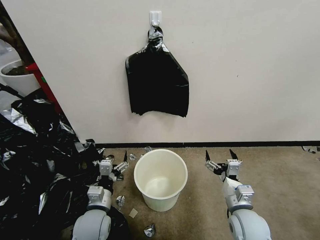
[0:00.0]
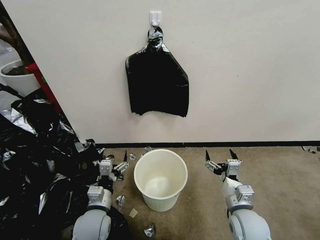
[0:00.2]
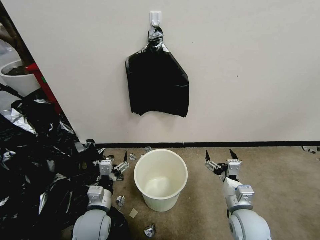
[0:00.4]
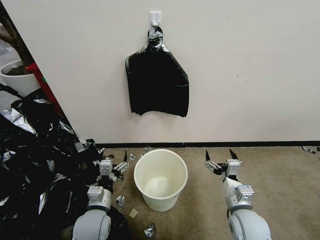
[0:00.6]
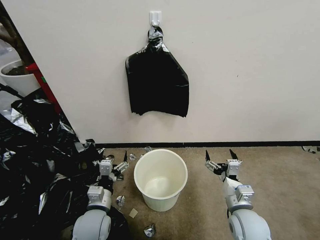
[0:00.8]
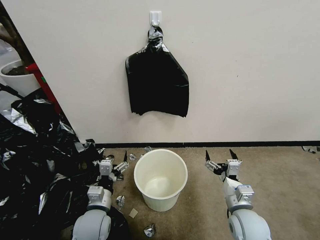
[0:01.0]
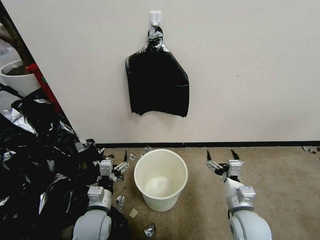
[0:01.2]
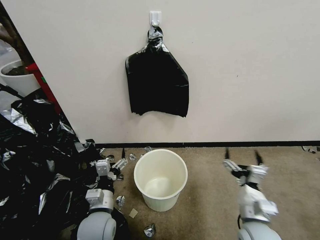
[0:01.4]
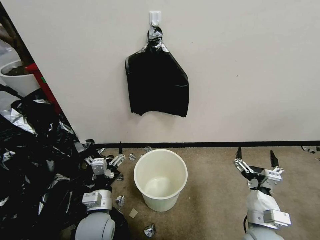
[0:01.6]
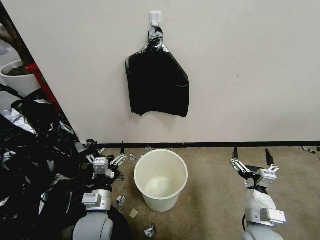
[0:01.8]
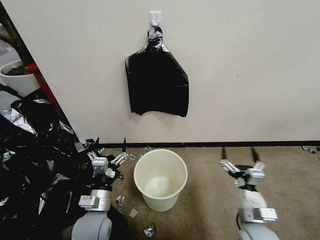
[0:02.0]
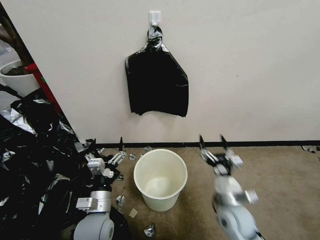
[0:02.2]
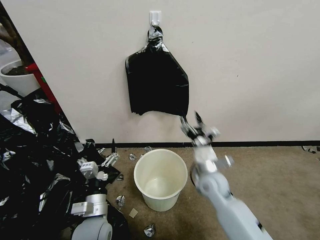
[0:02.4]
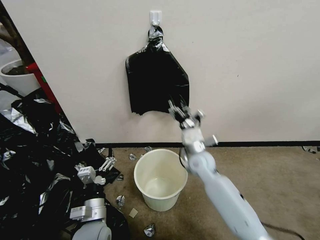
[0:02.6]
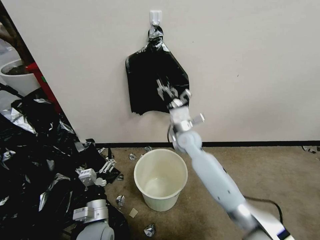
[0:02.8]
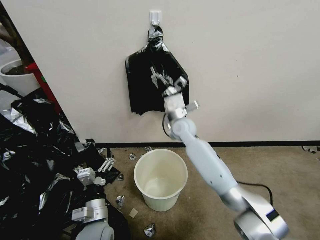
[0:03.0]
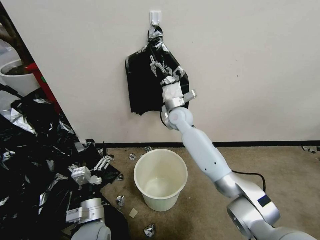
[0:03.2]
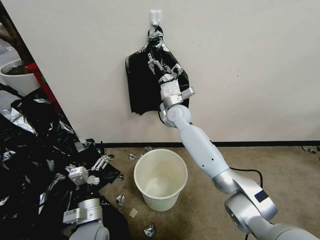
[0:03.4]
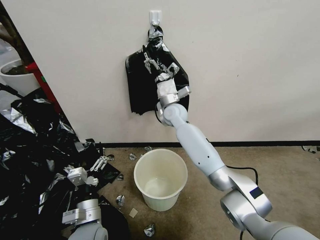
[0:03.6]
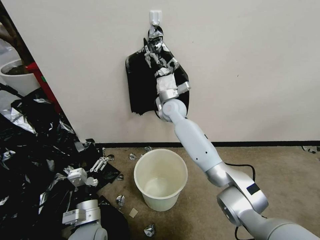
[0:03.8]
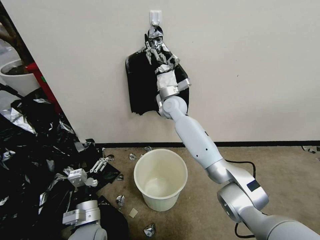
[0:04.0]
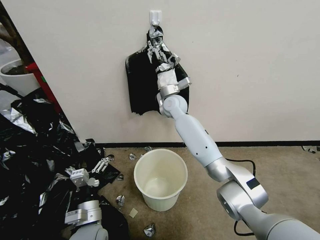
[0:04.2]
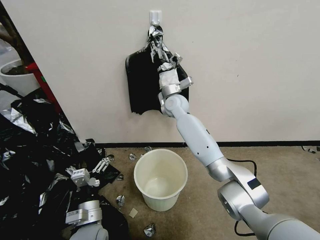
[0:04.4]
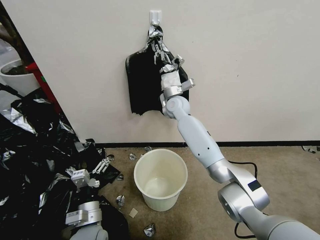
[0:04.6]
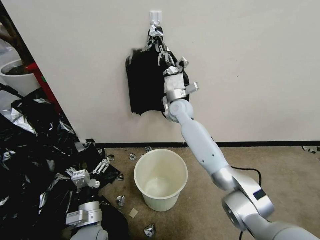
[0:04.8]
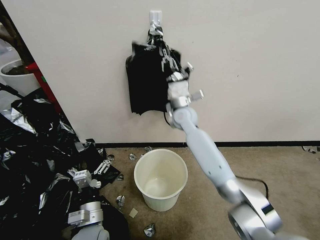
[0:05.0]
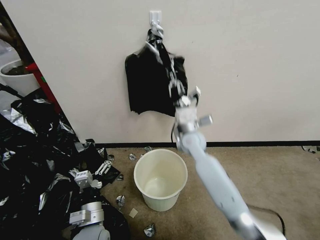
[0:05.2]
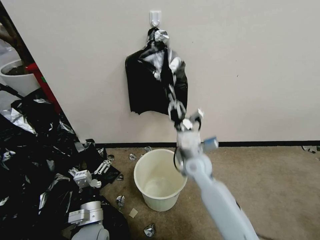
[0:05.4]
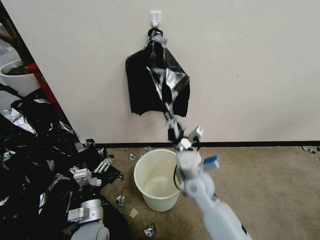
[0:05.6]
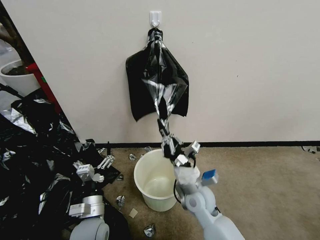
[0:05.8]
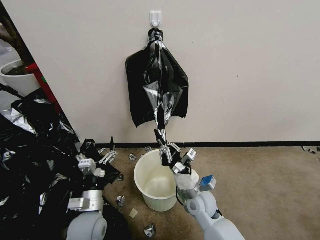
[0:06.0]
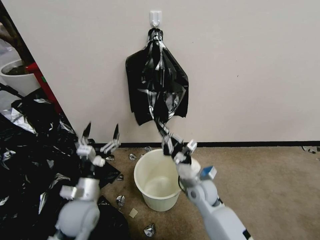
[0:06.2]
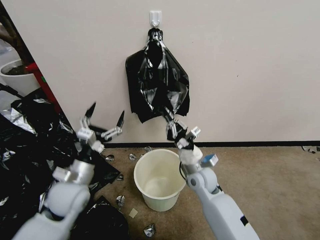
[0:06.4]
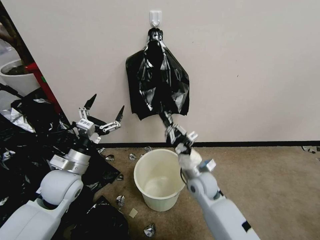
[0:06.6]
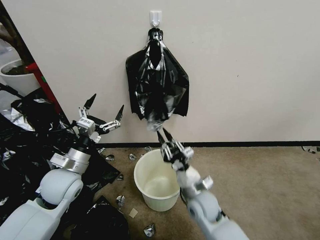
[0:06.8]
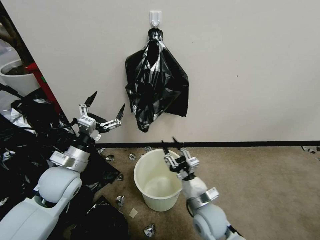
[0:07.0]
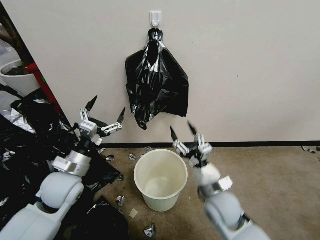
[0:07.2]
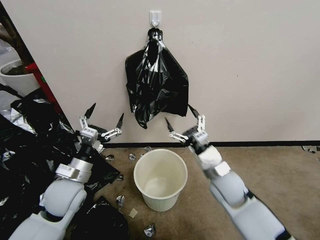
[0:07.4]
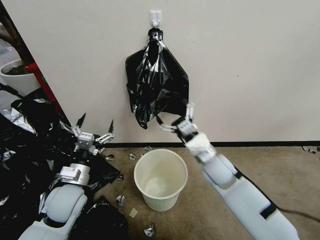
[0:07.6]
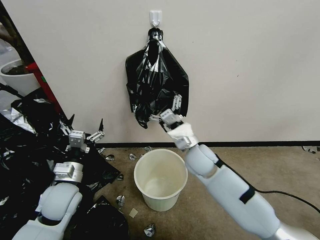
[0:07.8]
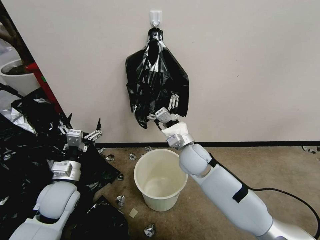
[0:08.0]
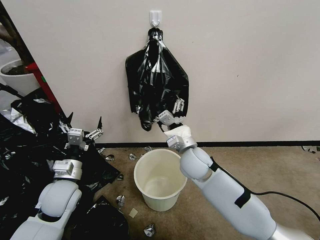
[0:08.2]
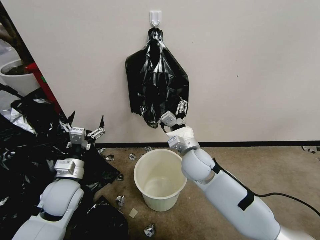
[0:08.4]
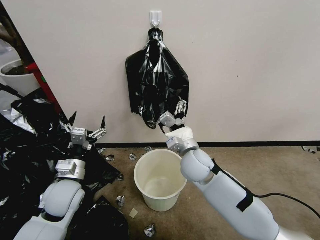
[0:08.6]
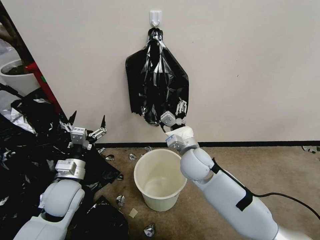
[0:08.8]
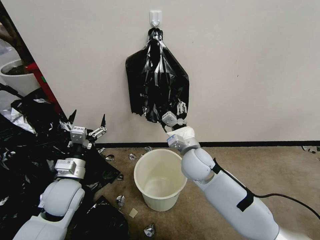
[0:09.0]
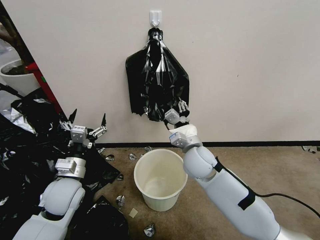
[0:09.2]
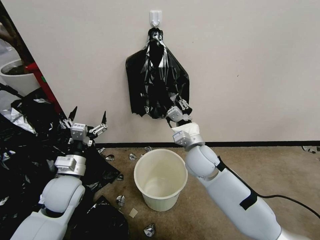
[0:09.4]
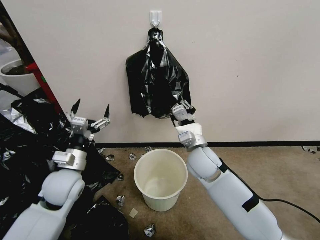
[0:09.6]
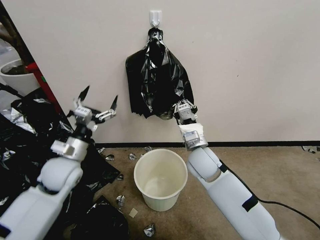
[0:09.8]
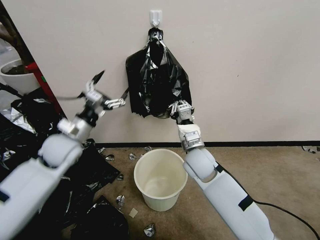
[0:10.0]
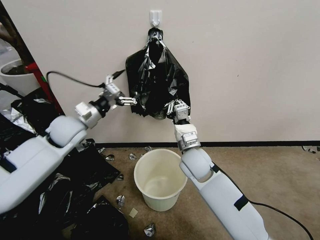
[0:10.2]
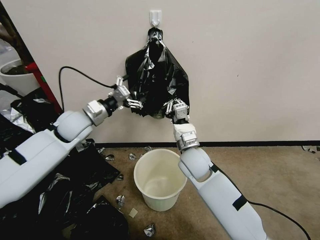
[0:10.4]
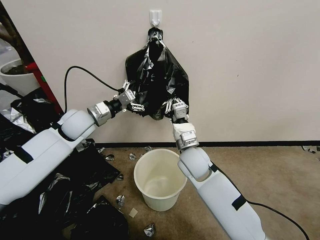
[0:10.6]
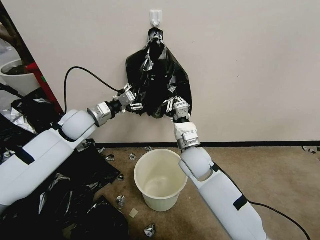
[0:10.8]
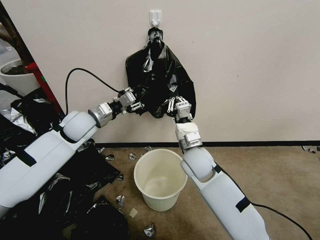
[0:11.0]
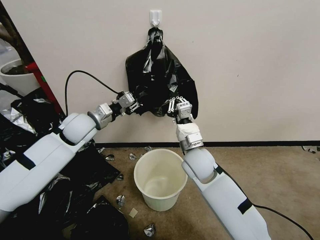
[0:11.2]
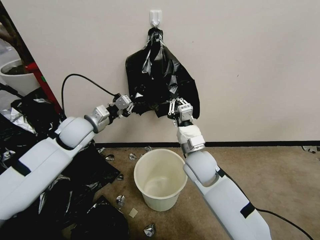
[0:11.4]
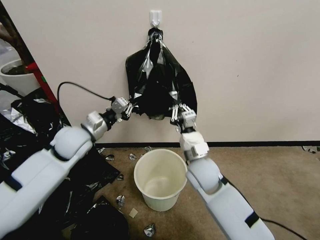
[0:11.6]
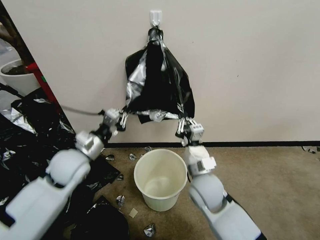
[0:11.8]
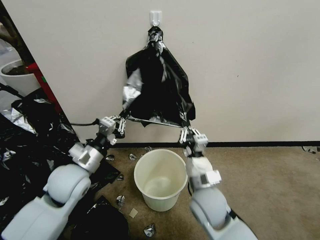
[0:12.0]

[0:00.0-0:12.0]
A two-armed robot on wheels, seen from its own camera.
Task of the whole recording: Place a trash bag onto the trash bin.
1.6 to 3.0 s: The right gripper is displaced forward and to the left by approximately 40 cm.
3.0 to 4.4 s: The right gripper heads forward and upward, covering roughly 10 cm, and closes its fingers.
4.4 to 6.0 s: The right gripper is displaced backward and downward by approximately 35 cm.
6.0 to 7.6 s: The right gripper moves forward and backward over approximately 10 cm, changing direction 2 times, and opens its fingers; the left gripper shifts roughly 10 cm upward, to the left and forward.
7.6 to 9.0 s: The right gripper shifts about 5 cm to the left.
9.0 to 10.4 s: The left gripper heads forward and upward, covering some 20 cm. Meanwhile the right gripper closes.
10.4 to 12.0 s: Both grippers move backward, some 15 cm. The left gripper closes.

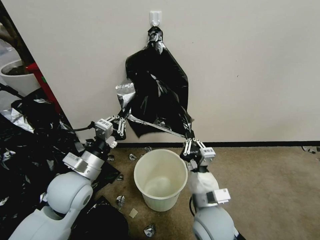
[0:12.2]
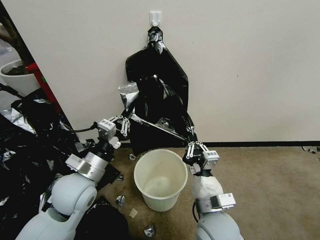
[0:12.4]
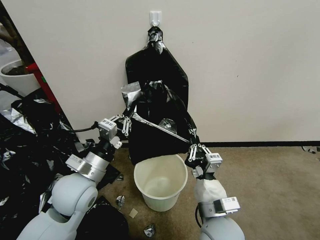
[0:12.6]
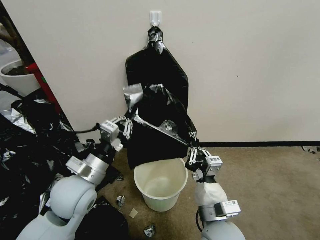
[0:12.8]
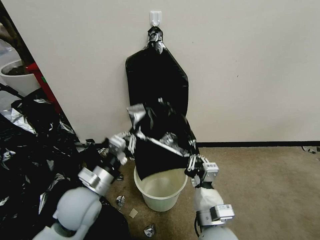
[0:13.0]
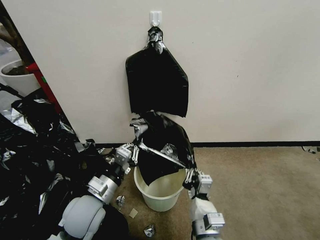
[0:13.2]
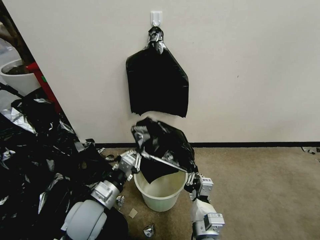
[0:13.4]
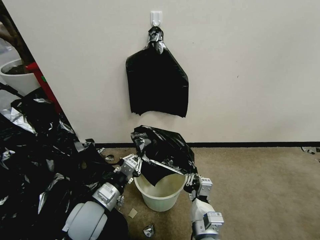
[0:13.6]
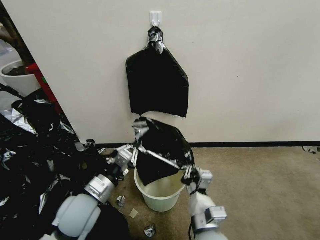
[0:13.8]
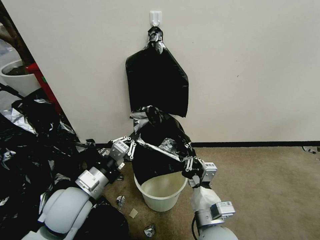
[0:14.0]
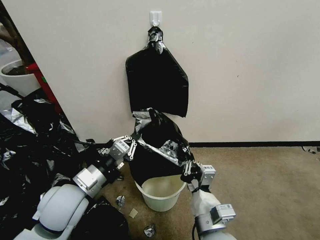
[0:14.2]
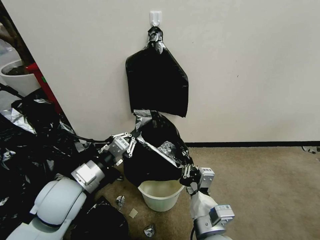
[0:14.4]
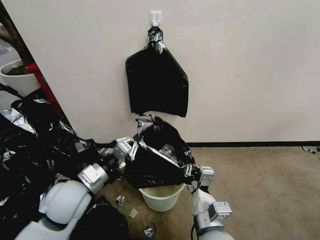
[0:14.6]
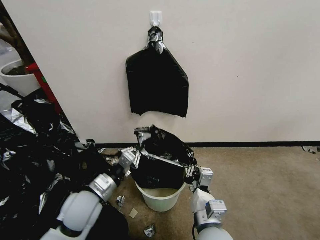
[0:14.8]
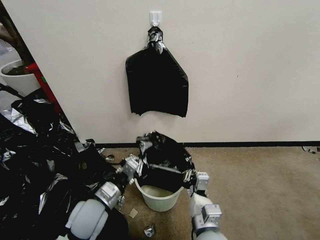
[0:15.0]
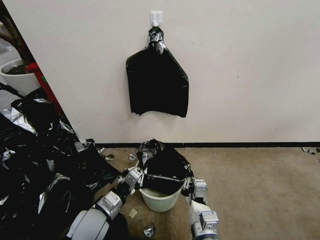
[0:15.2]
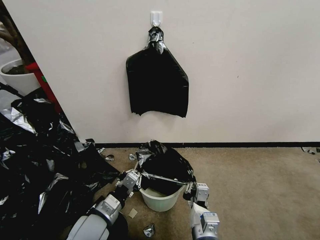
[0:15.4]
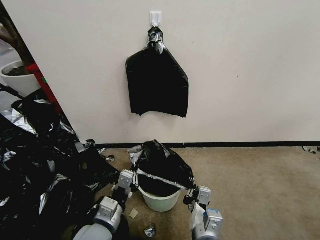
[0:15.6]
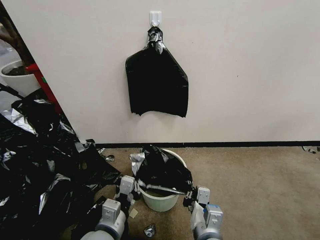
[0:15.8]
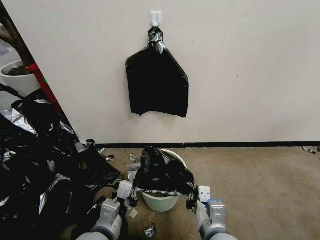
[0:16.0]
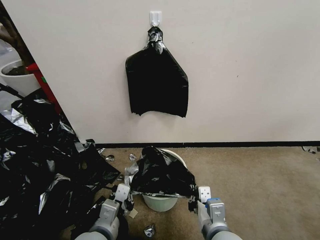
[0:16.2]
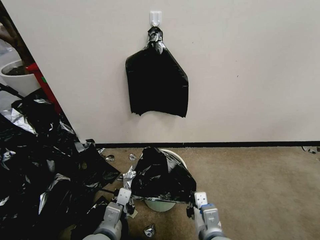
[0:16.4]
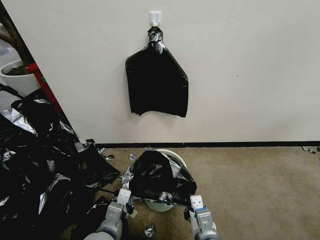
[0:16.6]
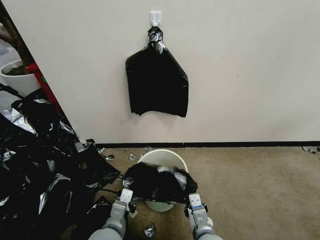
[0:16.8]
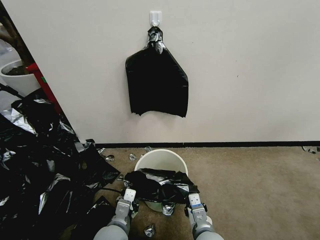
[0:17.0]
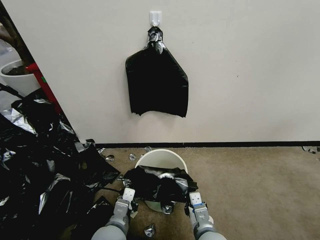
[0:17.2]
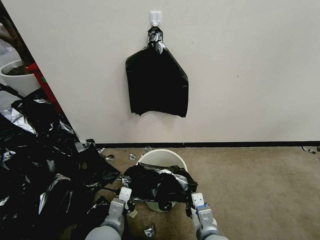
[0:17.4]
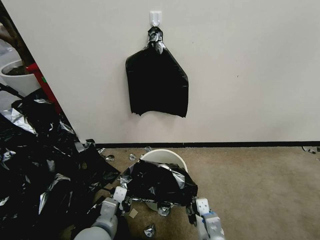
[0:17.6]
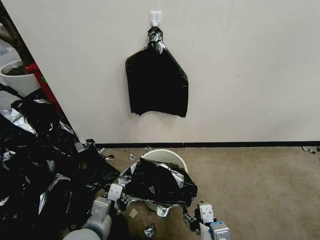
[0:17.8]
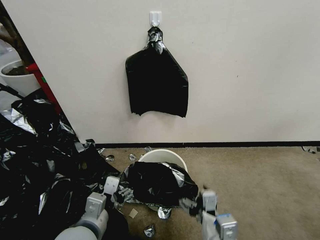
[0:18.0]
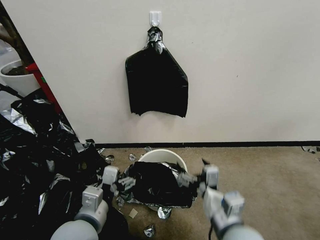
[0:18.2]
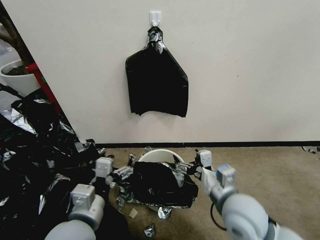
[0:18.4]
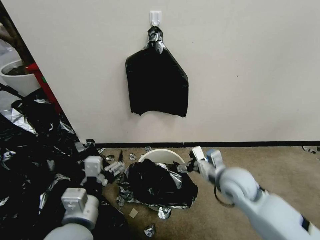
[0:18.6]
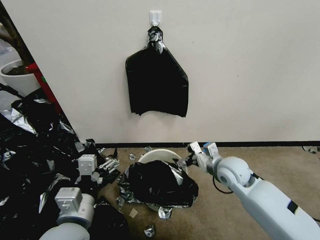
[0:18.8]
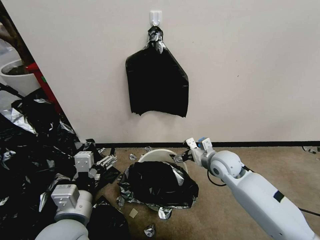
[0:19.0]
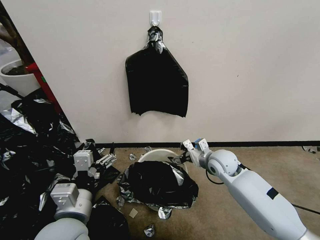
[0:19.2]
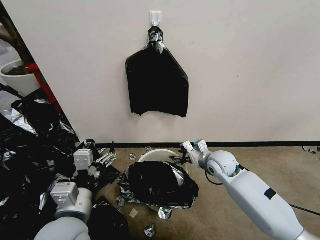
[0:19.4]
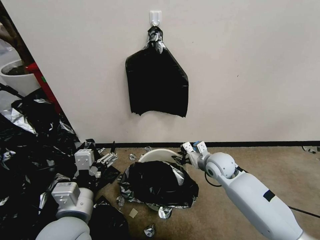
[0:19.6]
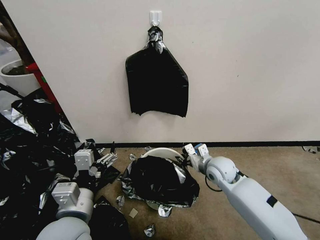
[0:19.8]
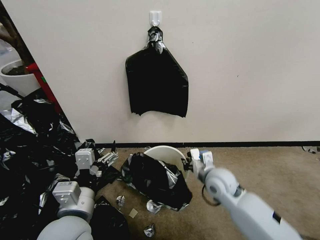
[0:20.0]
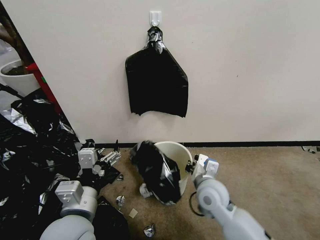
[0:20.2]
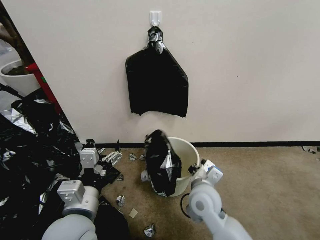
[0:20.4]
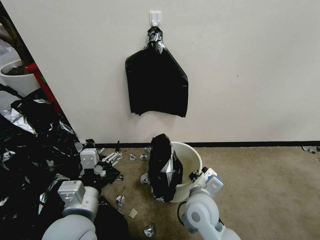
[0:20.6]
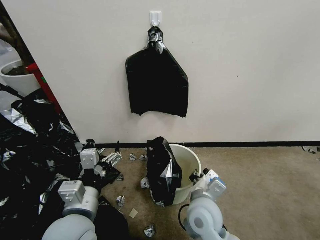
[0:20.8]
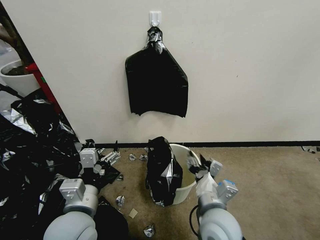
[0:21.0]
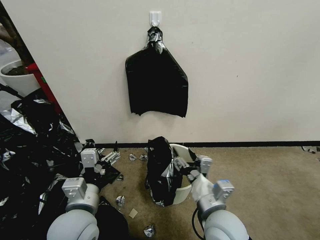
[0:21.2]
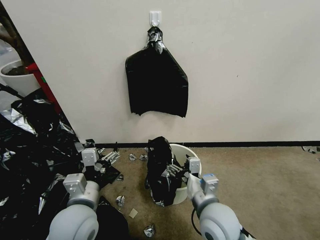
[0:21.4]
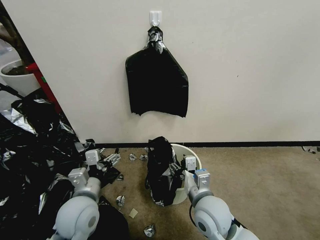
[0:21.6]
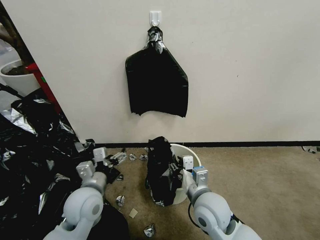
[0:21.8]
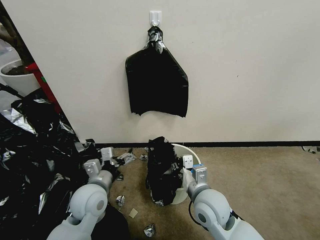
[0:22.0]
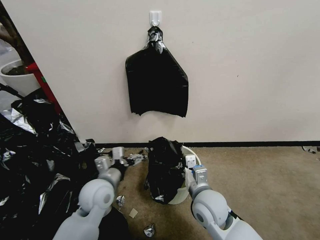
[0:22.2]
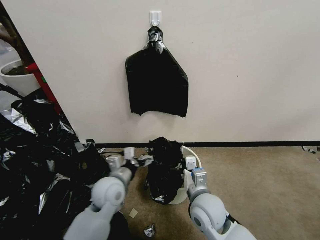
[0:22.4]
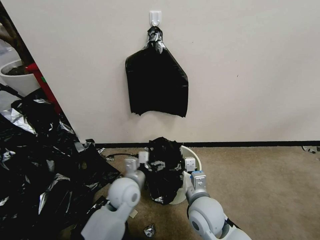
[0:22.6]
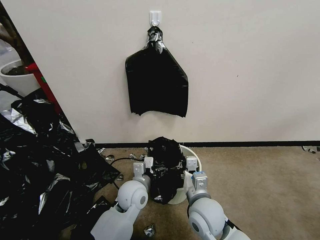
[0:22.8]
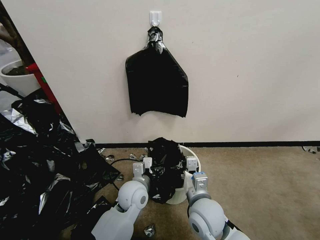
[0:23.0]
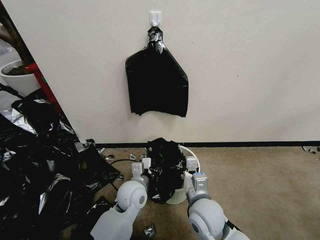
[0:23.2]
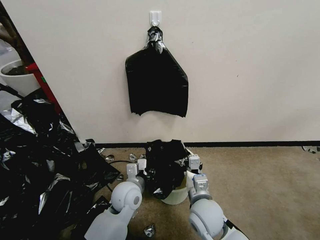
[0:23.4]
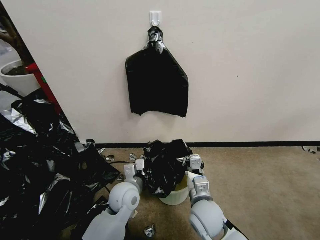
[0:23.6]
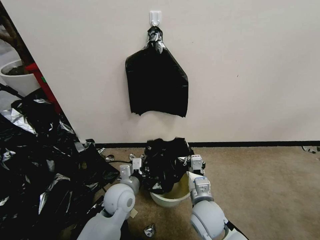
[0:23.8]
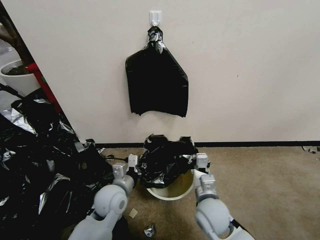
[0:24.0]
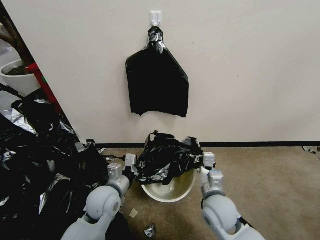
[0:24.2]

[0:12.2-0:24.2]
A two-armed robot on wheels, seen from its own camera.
Task of the whole recording: Place a trash bag onto the trash bin.
12.2 to 13.8 s: The right gripper goes approximately 5 cm backward. Meanwhile the left gripper is displaced downward by roughly 5 cm.
13.8 to 15.2 s: The left gripper moves downward, approximately 5 cm. Meanwhile the right gripper goes upward and returns, roughly 5 cm each way.
15.2 to 16.6 s: The left gripper travels backward by approximately 5 cm.
16.6 to 18.2 s: The grippers both shift upward by roughly 10 cm. The left gripper opens; the right gripper opens.
18.2 to 19.8 s: The right gripper goes about 25 cm forward, and closes its fingers.
19.8 to 21.2 s: The right gripper moves backward, about 20 cm, and opens.
21.2 to 22.6 s: The left gripper shifts roughly 20 cm forward, downward and to the right. The right gripper is displaced downward by about 5 cm, and closes its fingers.
22.6 to 24.2 s: The right gripper travels to the right by some 5 cm. The left gripper travels to the left by approximately 5 cm, and closes its fingers.
